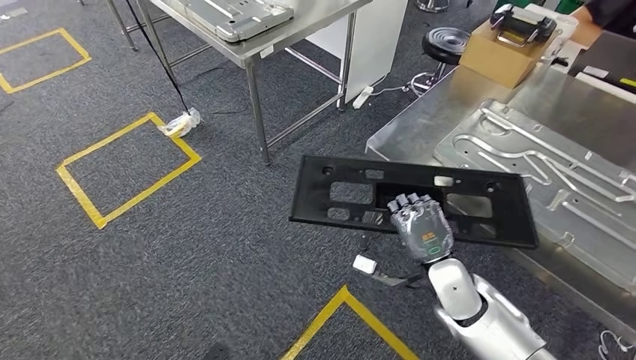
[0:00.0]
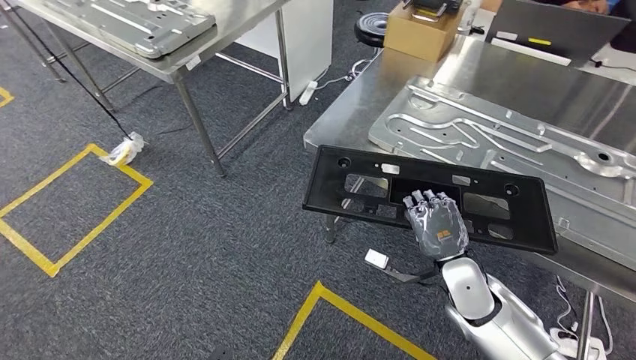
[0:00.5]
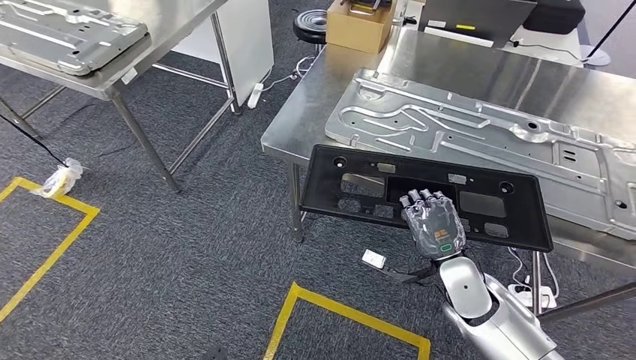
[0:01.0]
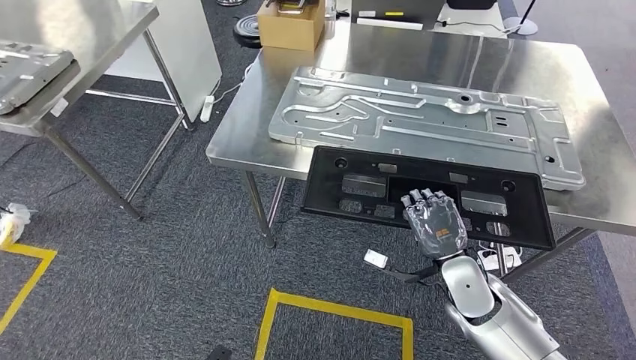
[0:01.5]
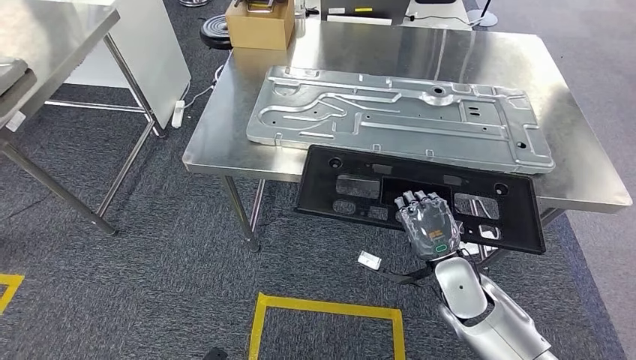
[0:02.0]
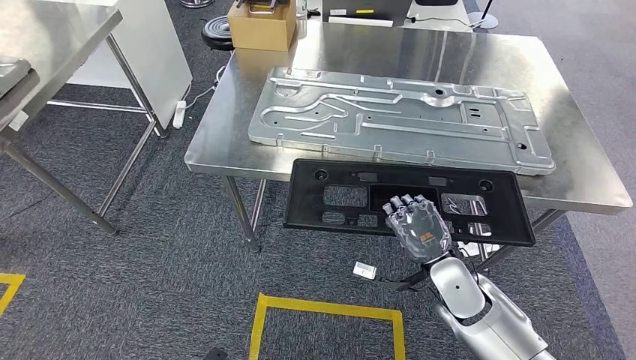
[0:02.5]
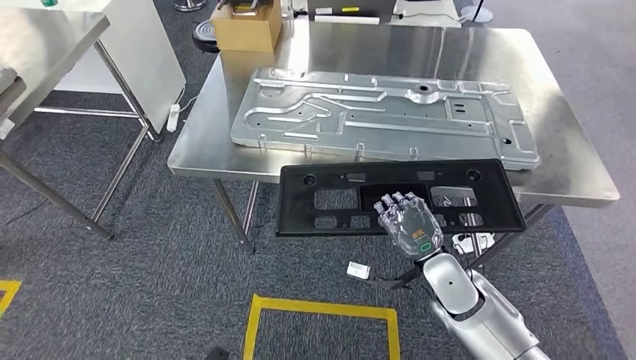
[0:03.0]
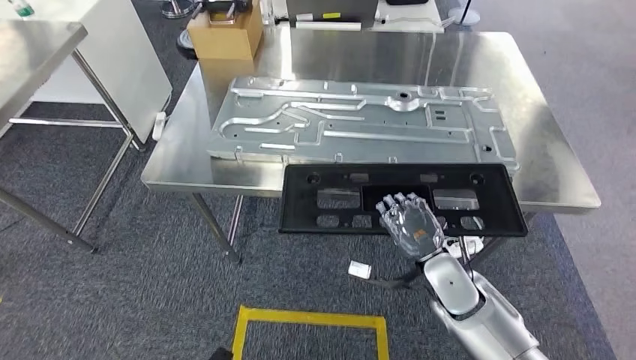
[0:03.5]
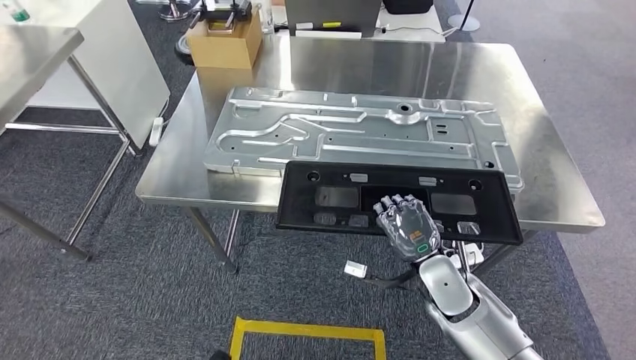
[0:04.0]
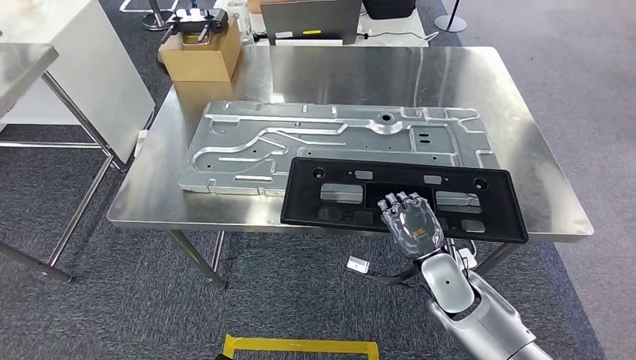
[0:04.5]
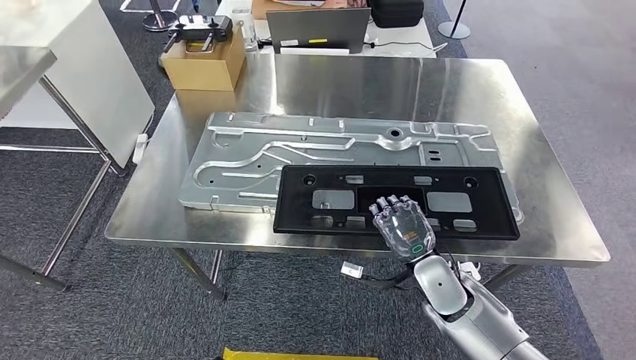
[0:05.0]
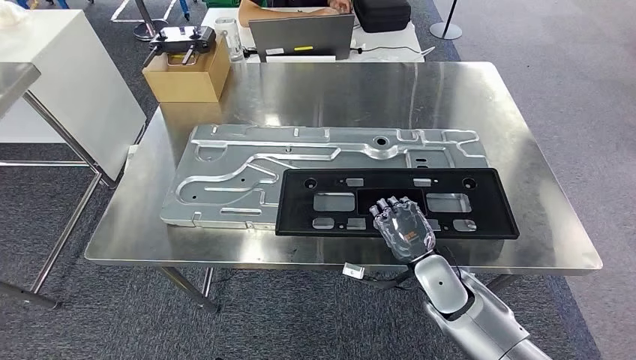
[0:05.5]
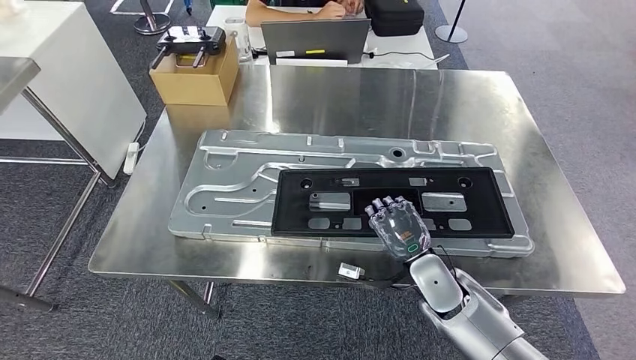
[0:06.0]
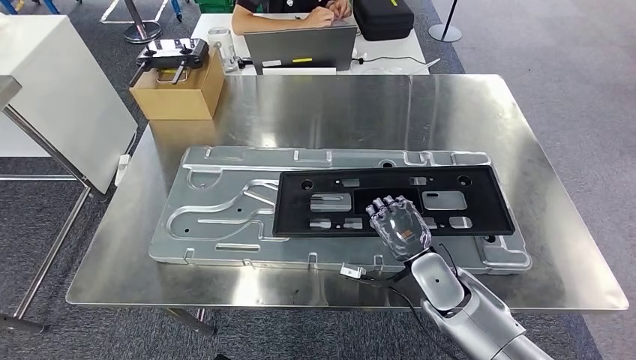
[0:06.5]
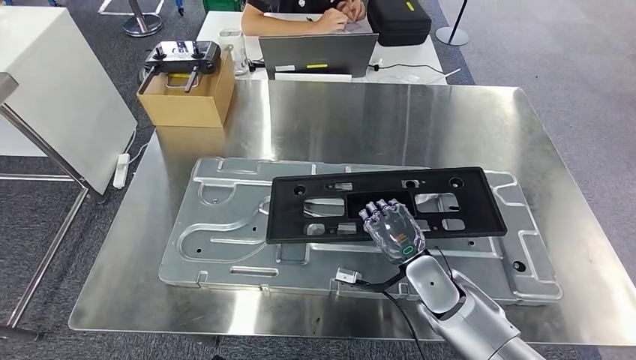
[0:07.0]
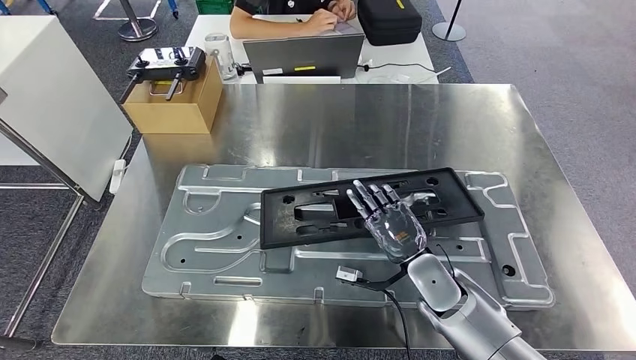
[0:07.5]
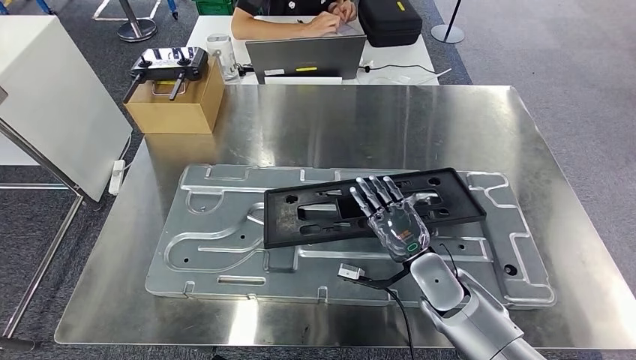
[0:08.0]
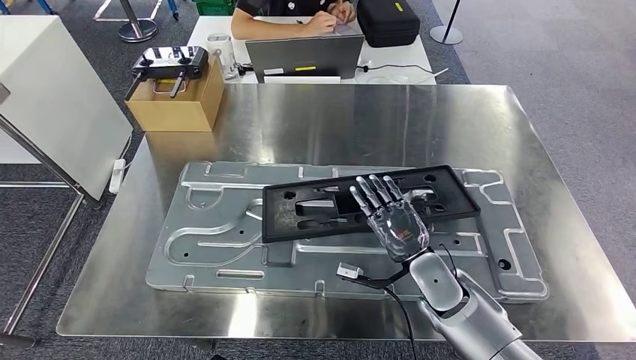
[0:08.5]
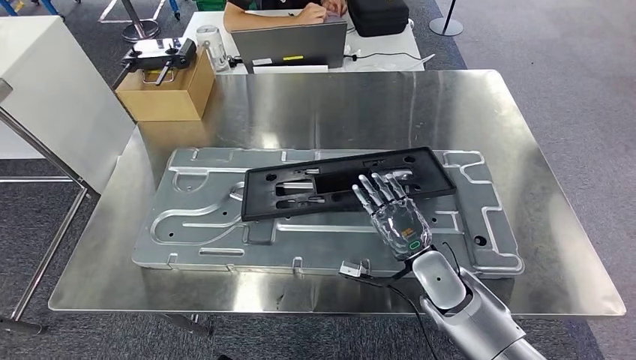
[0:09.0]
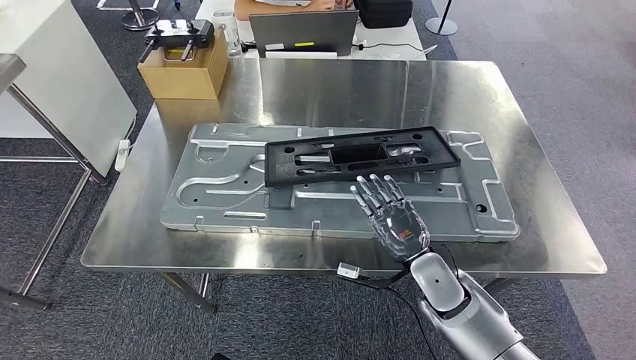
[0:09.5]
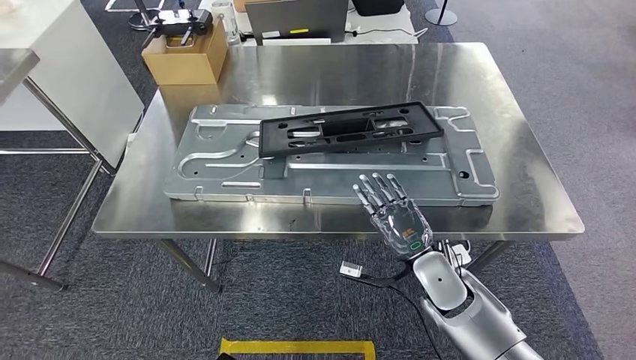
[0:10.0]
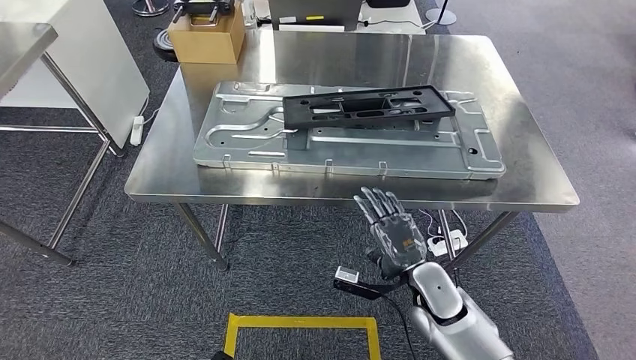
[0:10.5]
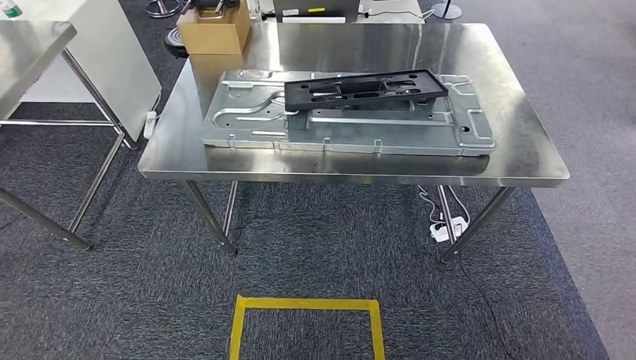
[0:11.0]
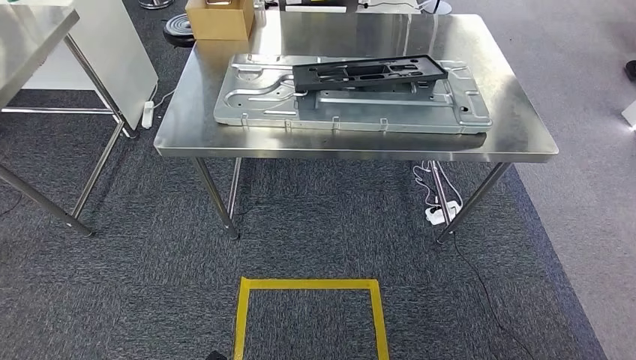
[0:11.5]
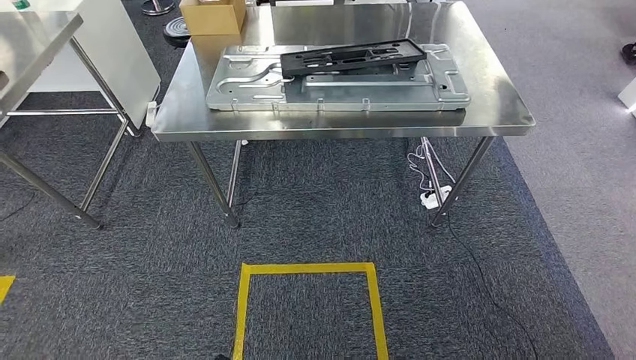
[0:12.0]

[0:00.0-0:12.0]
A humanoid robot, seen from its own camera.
Step, 0:00.0 to 0:02.0: Move the large material to the workbench.
Step, 0:02.5 to 0:10.0: Insert the large material into the corresponding slot on the workbench.

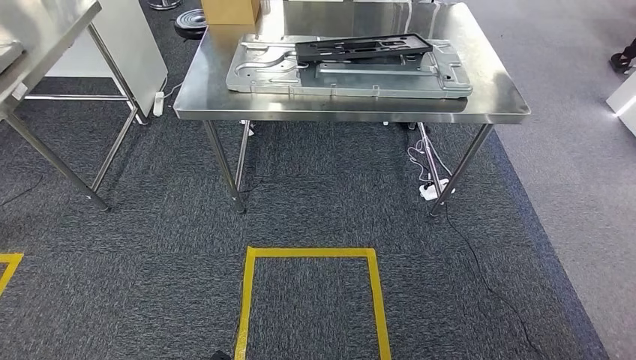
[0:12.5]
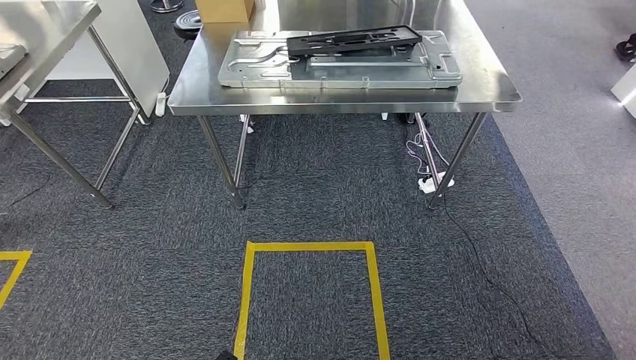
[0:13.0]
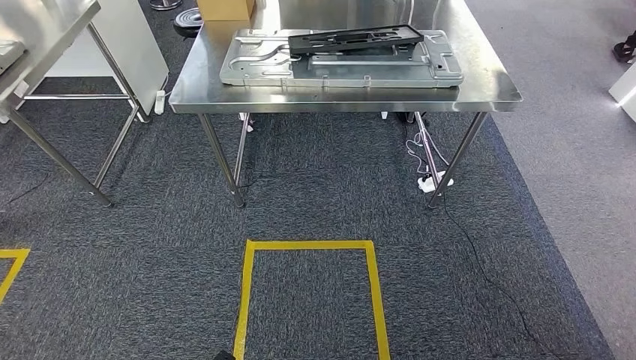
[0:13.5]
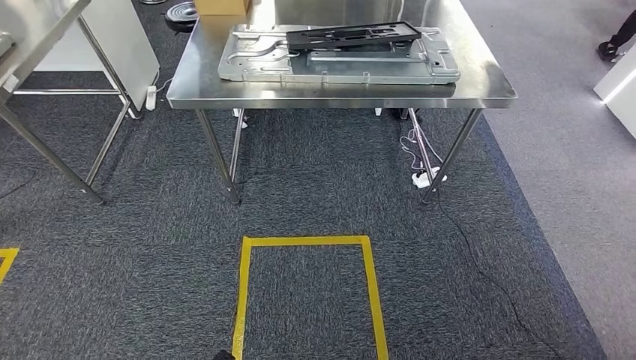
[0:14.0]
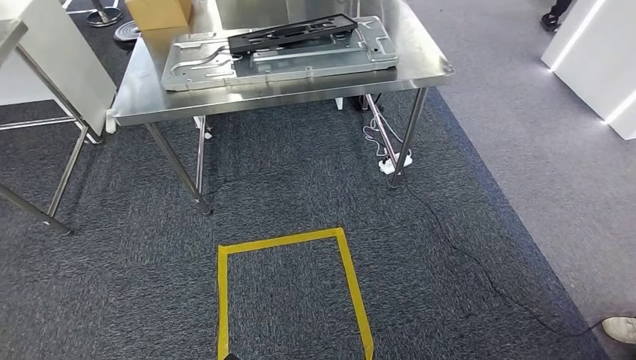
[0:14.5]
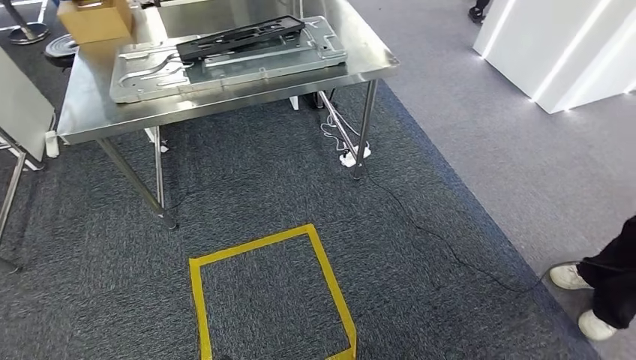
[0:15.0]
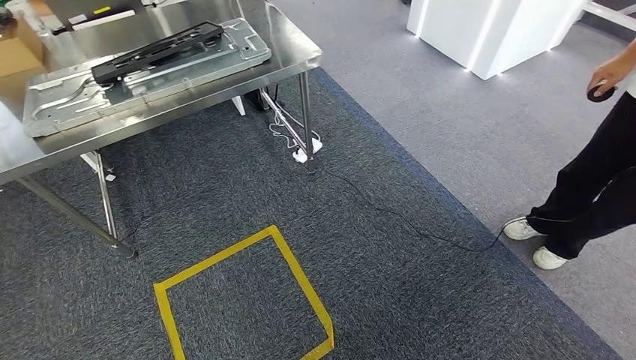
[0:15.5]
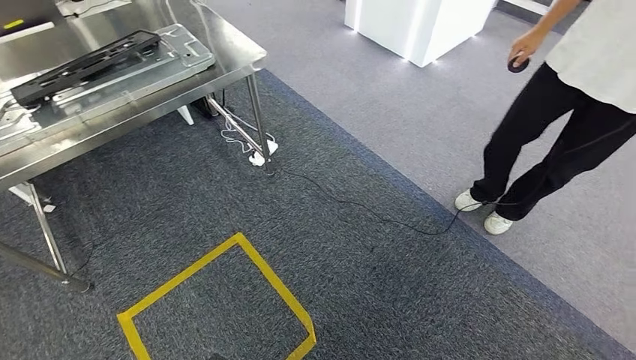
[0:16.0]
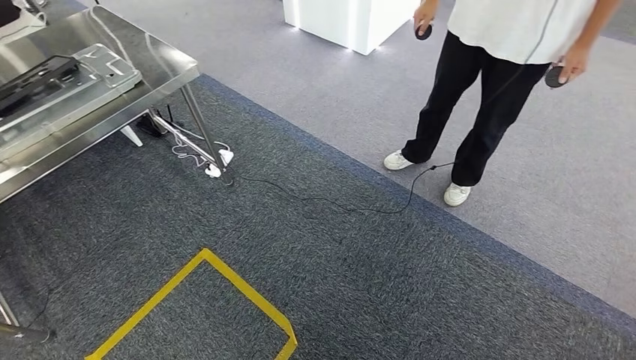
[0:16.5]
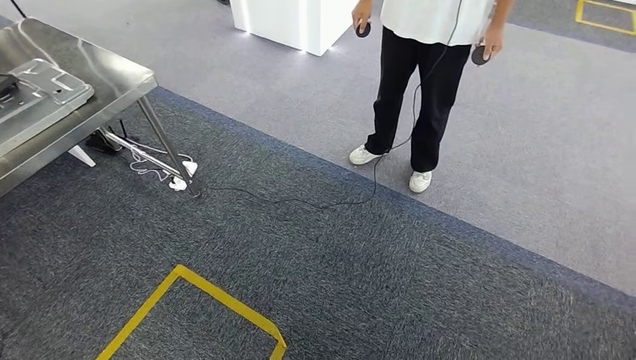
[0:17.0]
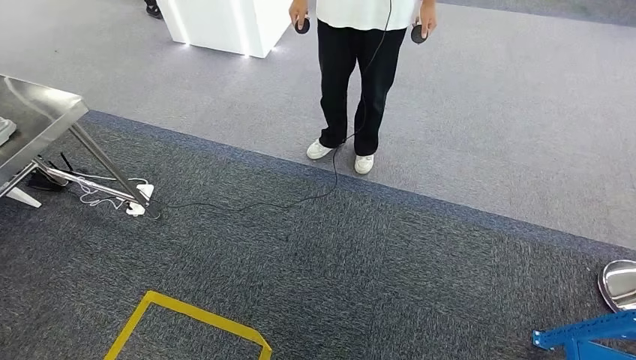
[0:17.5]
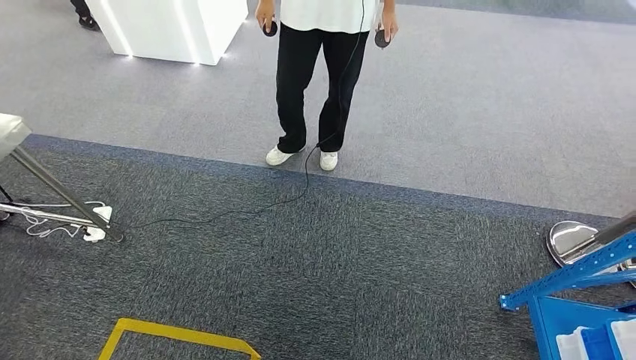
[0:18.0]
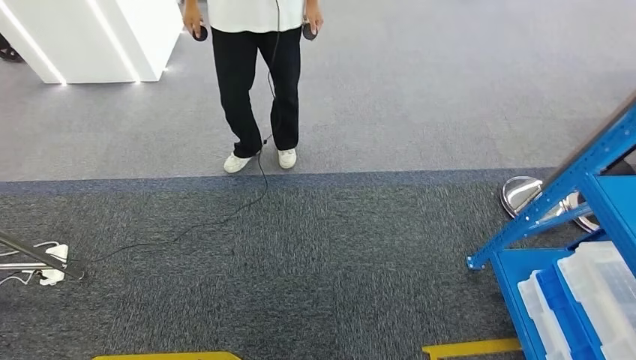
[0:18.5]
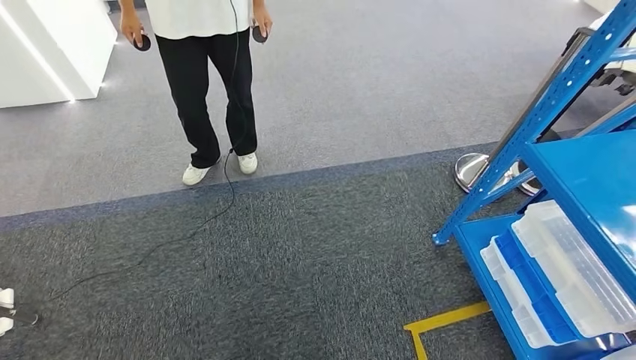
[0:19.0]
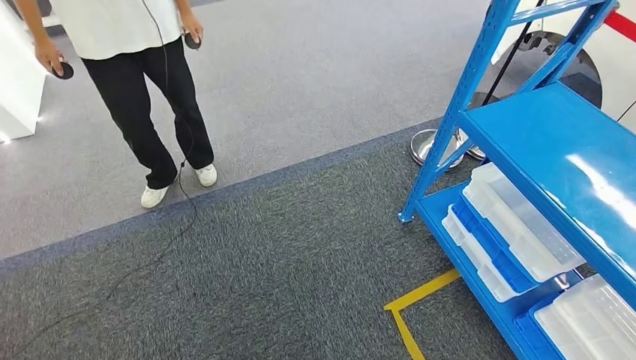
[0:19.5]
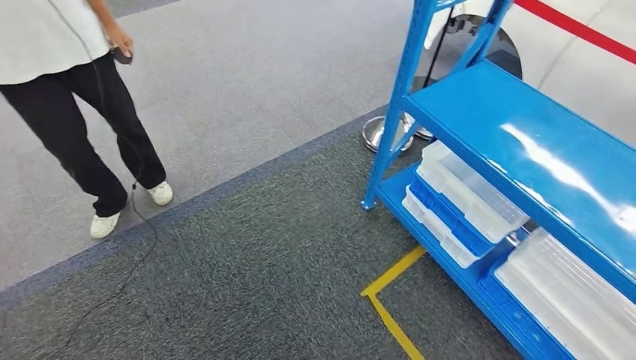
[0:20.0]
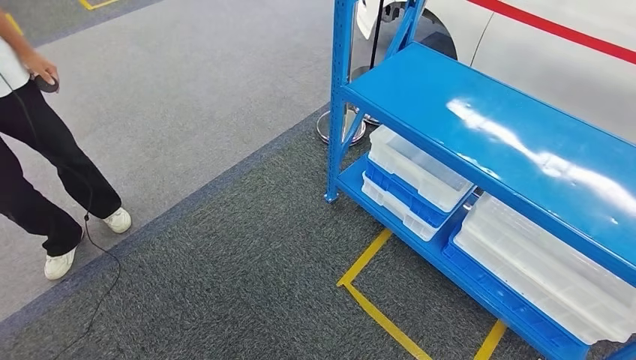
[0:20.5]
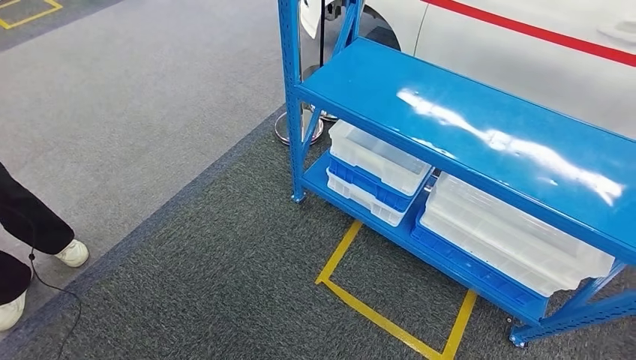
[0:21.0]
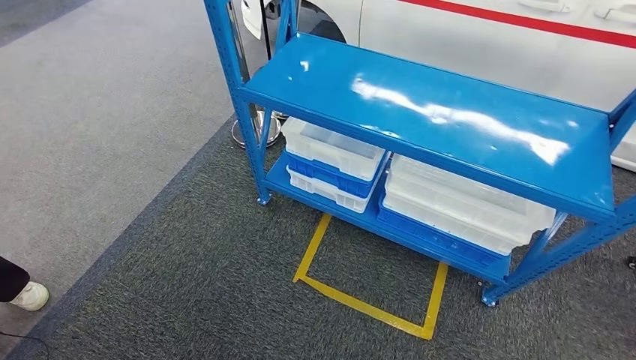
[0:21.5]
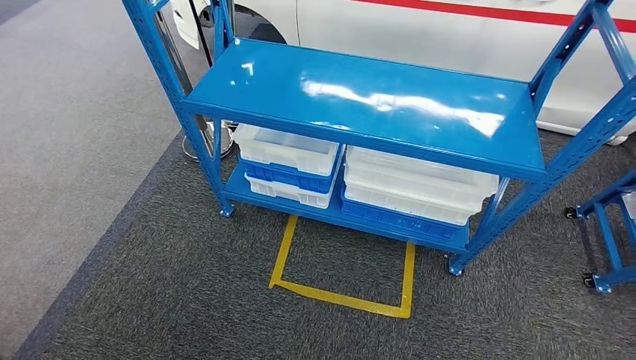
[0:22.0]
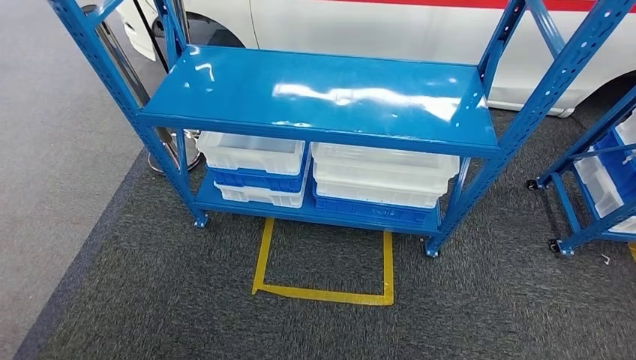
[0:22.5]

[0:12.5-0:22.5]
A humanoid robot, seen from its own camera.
Step, 0:12.5 to 0:22.5: Return to the initial position at the shelf.
